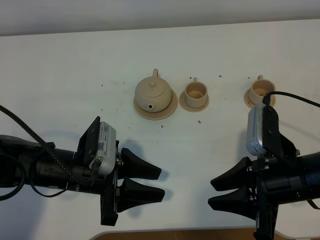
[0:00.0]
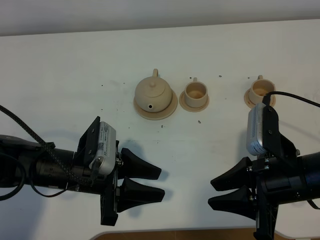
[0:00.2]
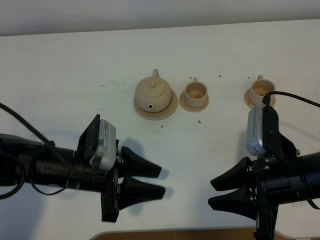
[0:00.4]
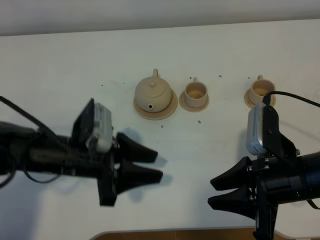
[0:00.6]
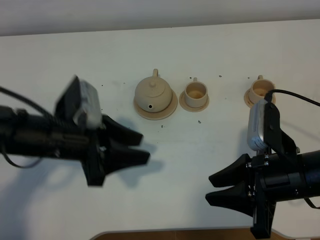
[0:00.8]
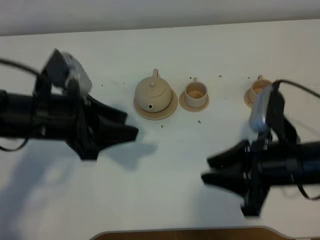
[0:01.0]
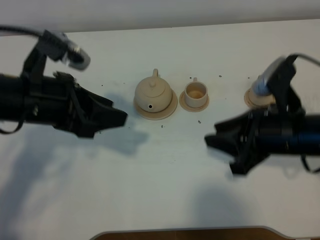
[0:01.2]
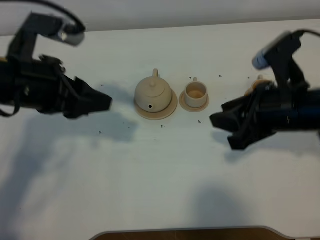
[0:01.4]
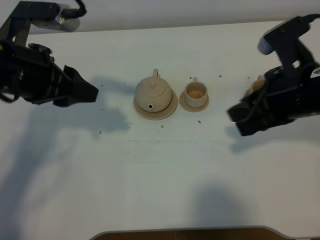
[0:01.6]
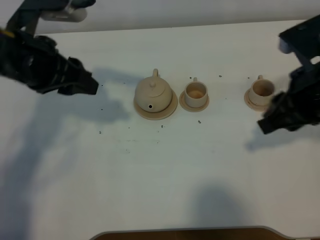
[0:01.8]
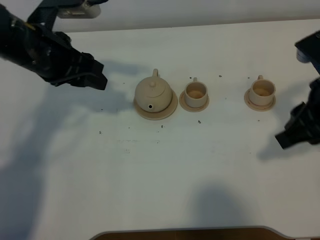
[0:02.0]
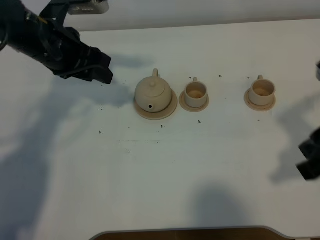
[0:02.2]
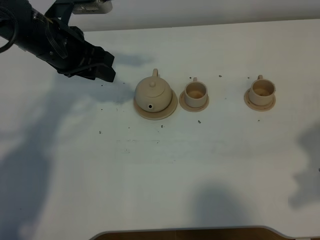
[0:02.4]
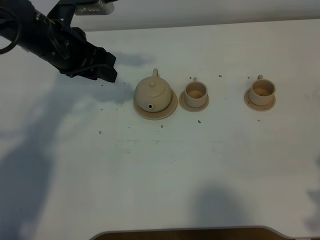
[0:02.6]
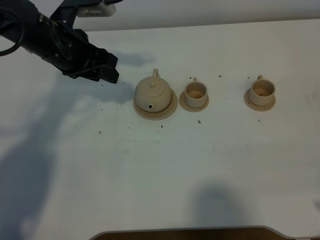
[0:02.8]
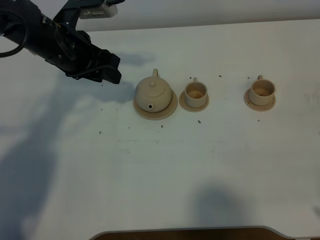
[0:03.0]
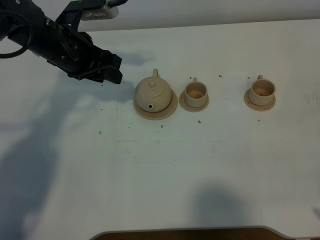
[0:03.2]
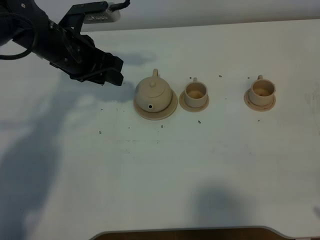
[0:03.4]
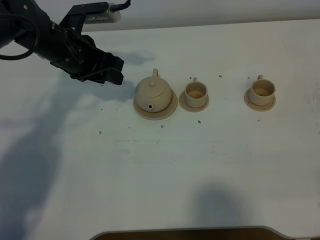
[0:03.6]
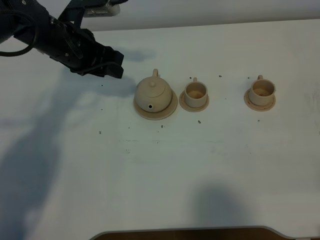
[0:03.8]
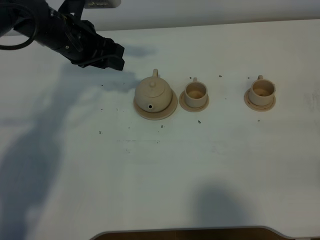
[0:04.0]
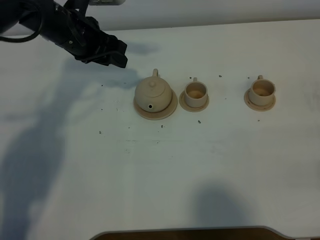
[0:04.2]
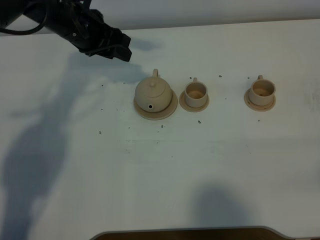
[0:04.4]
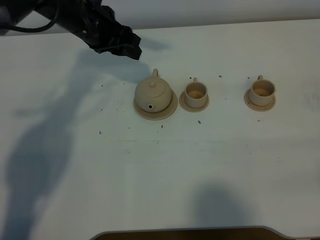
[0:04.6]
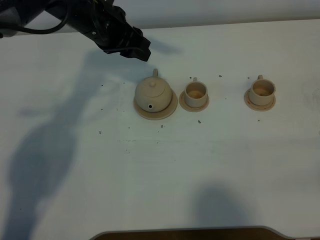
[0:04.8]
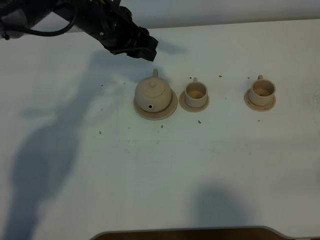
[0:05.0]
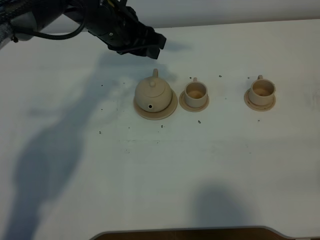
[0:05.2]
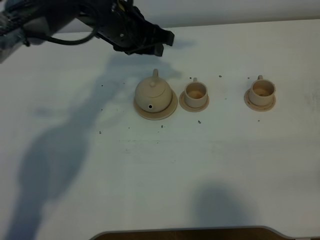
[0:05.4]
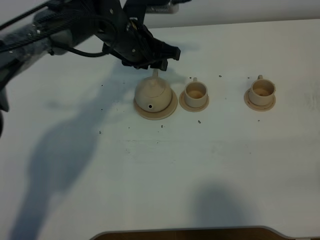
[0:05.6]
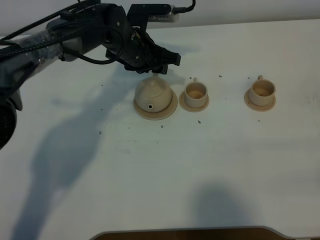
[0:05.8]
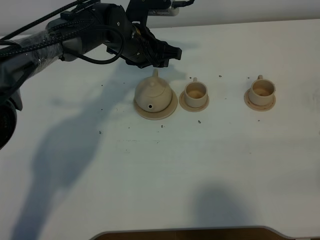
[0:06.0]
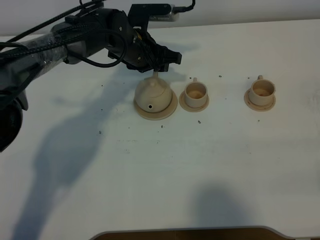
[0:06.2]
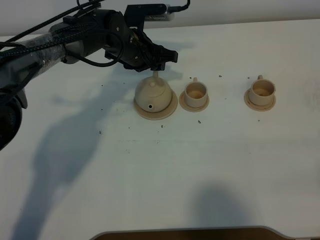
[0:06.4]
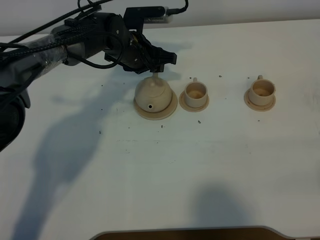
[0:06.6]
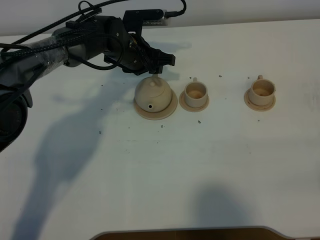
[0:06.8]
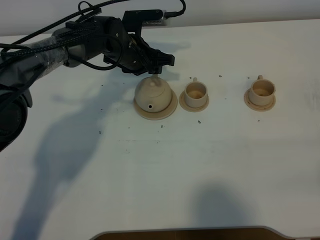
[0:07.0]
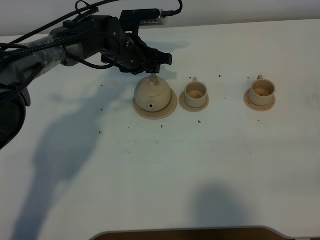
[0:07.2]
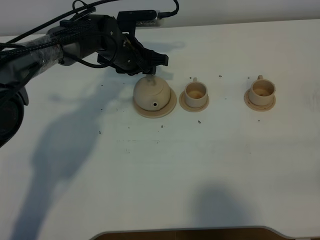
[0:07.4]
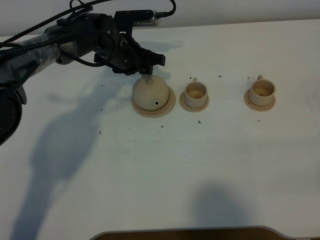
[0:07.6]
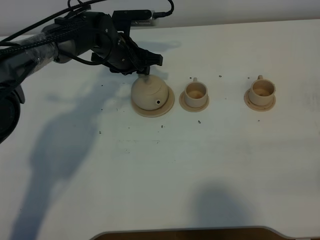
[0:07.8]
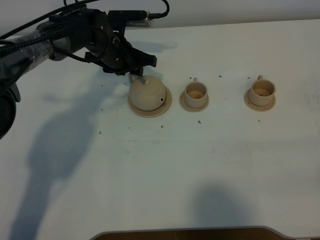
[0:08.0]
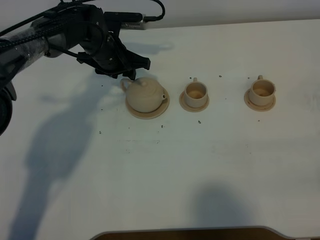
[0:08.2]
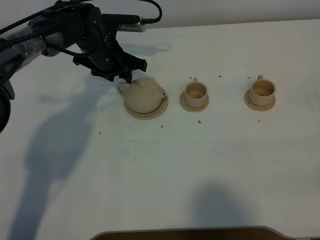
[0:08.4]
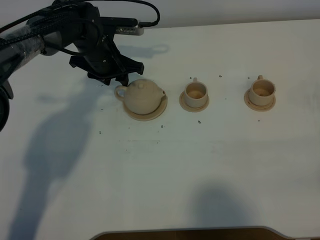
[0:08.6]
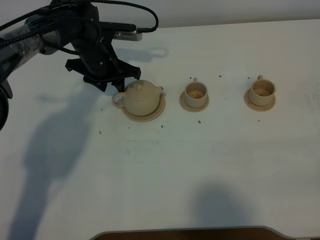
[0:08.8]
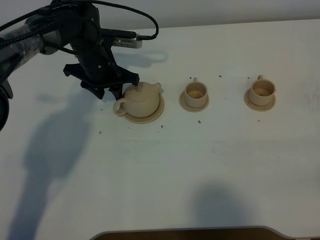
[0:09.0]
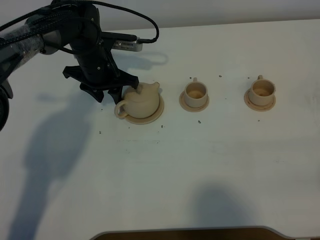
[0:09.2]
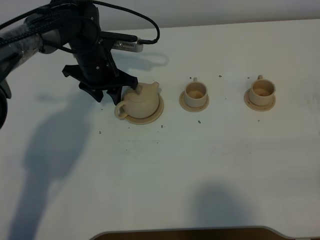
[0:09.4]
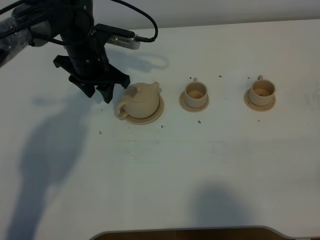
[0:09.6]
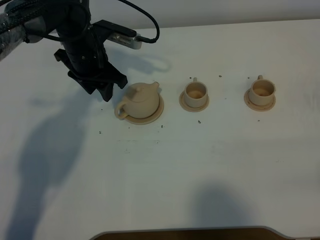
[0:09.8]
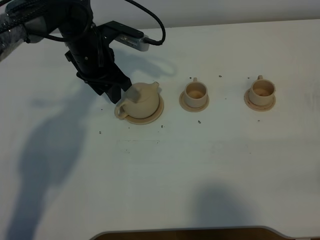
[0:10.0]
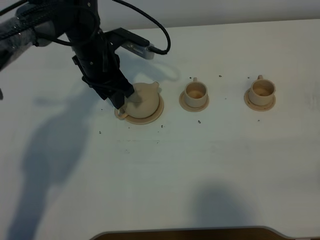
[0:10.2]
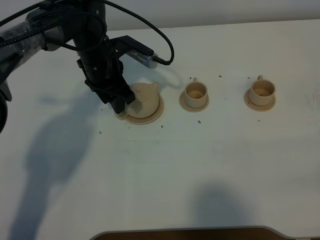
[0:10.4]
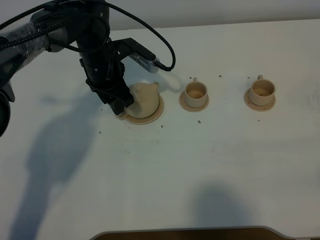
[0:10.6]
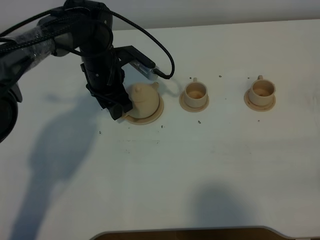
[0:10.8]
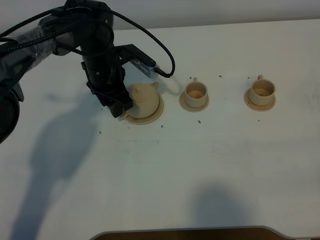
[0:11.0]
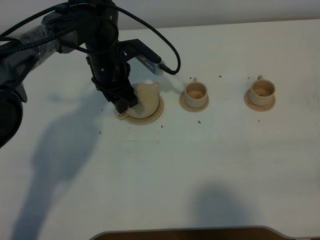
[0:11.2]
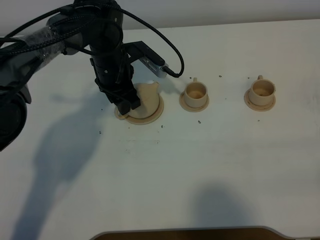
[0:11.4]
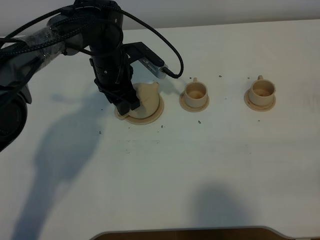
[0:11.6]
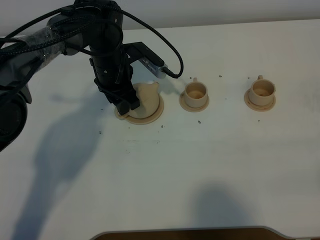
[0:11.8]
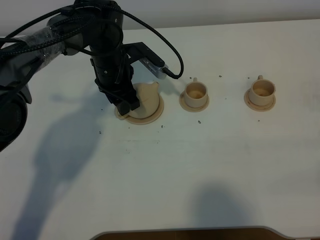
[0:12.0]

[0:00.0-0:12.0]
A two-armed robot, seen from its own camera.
Task of the whole recording: grasp the brown teapot and pour the tea into the two brown teacups one by one, put the brown teapot back in its original place.
0:00.0 to 0:01.6: The left gripper is displaced upward and forward by about 20 cm. Meanwhile the right gripper is displaced upward and forward by some 10 cm.
0:01.6 to 0:03.0: The left gripper is displaced forward and downward by roughly 15 cm; the right gripper travels backward and to the right by some 20 cm.
0:03.0 to 0:04.4: The left gripper travels forward by roughly 5 cm. The right gripper closes.
0:04.4 to 0:06.0: The right gripper closes; the left gripper goes roughly 10 cm to the right and downward.
0:06.0 to 0:07.6: The left gripper shifts by some 5 cm.
0:10.4 to 0:12.0: There are only small adjustments of the grippers.

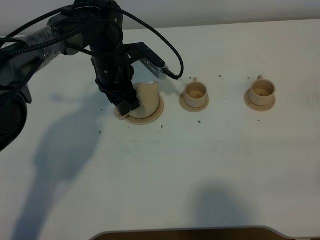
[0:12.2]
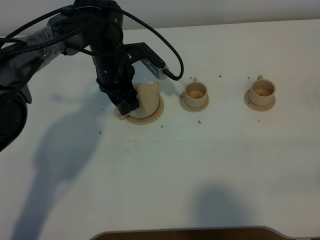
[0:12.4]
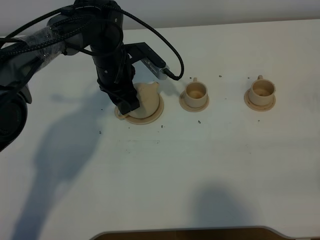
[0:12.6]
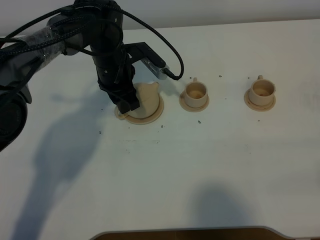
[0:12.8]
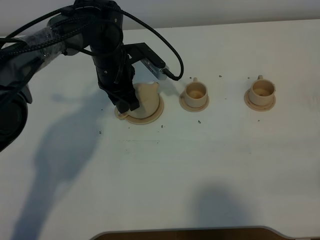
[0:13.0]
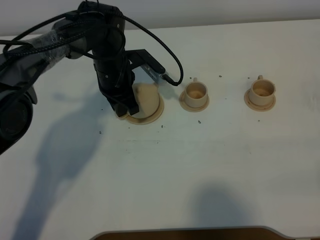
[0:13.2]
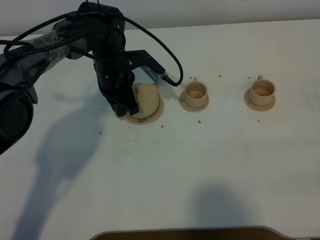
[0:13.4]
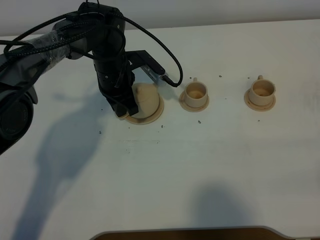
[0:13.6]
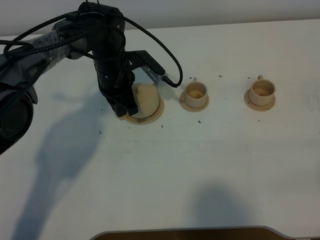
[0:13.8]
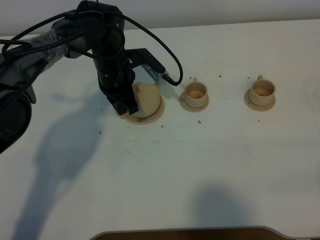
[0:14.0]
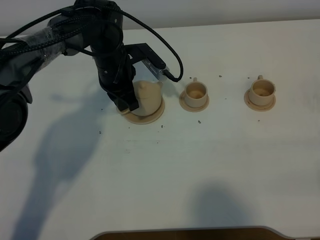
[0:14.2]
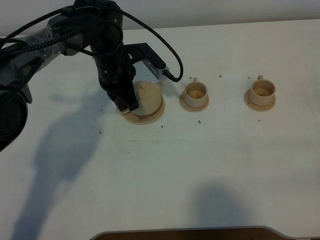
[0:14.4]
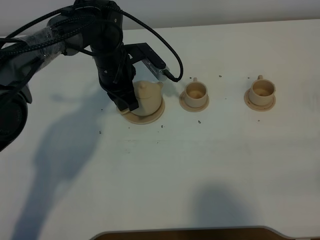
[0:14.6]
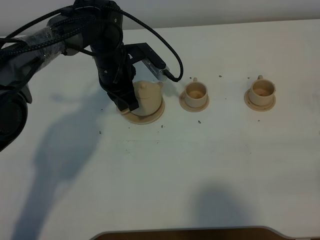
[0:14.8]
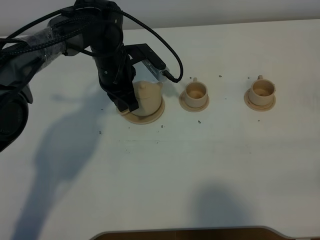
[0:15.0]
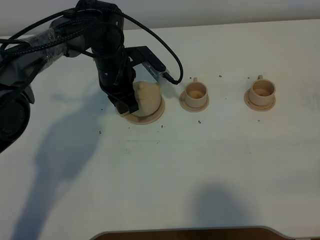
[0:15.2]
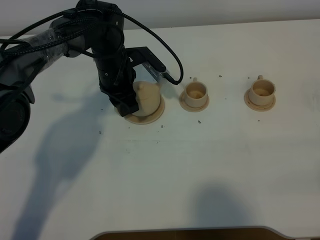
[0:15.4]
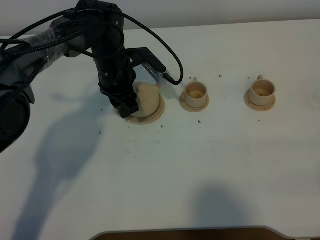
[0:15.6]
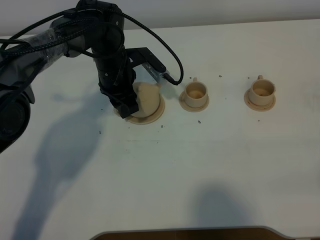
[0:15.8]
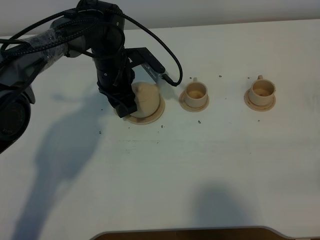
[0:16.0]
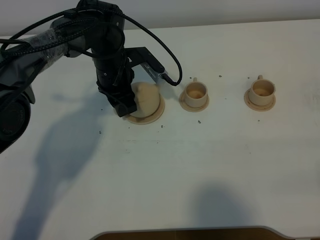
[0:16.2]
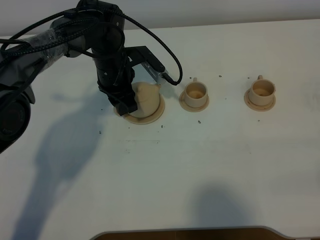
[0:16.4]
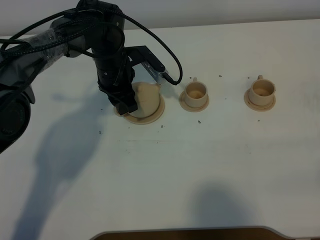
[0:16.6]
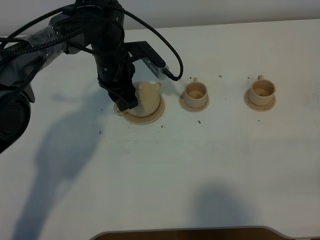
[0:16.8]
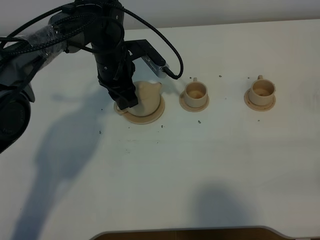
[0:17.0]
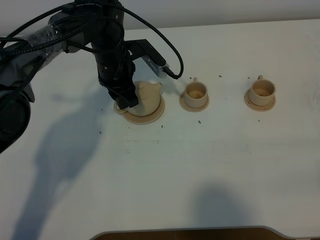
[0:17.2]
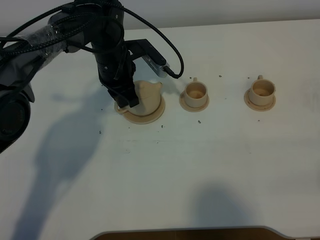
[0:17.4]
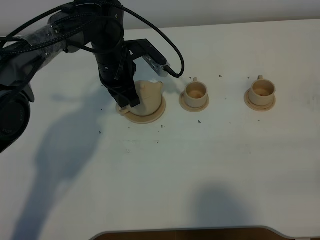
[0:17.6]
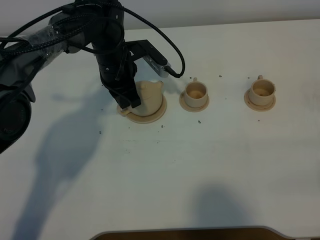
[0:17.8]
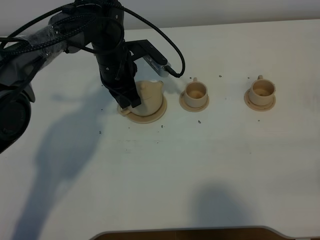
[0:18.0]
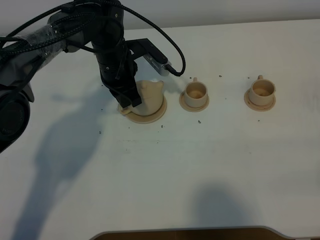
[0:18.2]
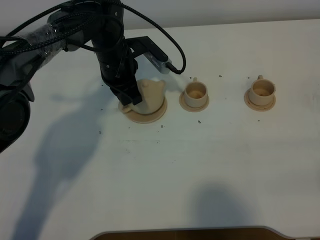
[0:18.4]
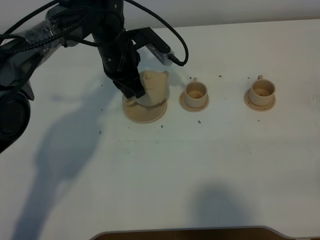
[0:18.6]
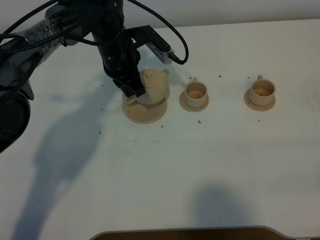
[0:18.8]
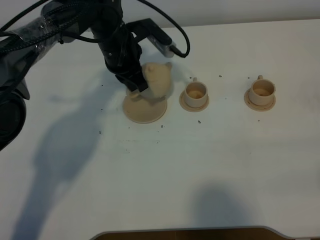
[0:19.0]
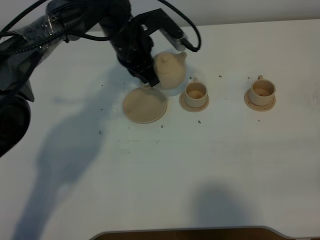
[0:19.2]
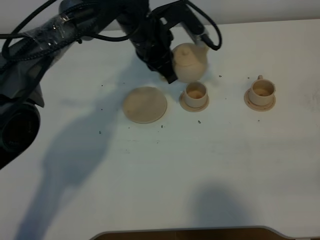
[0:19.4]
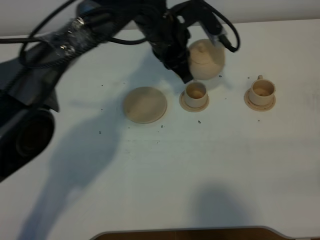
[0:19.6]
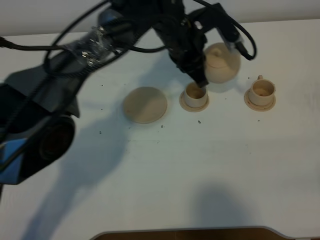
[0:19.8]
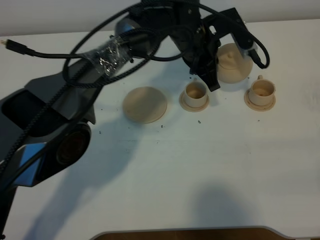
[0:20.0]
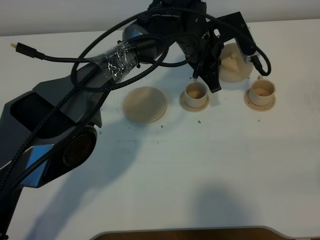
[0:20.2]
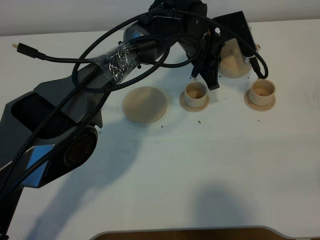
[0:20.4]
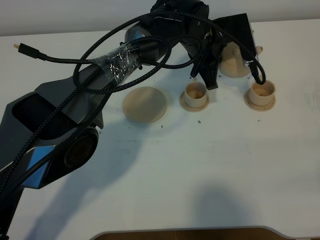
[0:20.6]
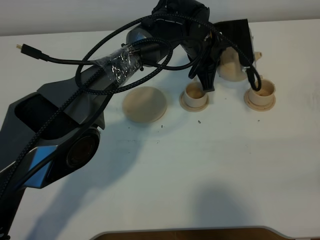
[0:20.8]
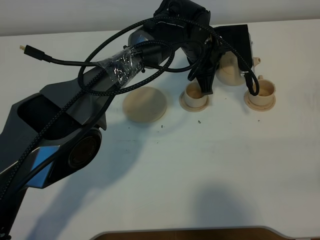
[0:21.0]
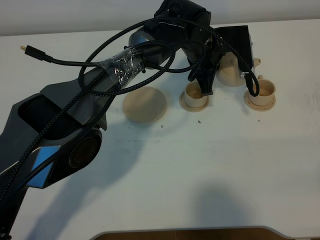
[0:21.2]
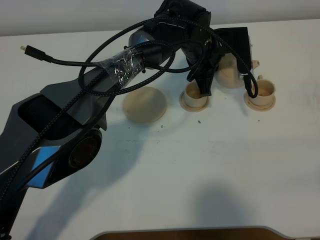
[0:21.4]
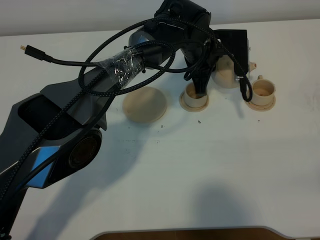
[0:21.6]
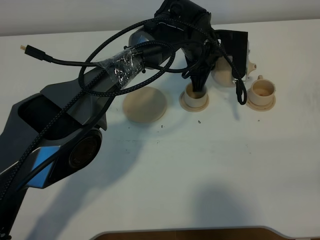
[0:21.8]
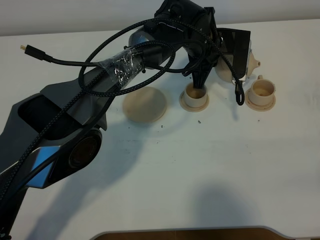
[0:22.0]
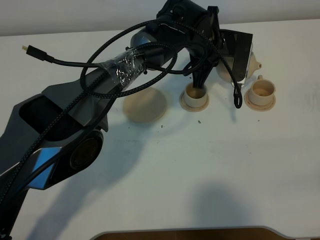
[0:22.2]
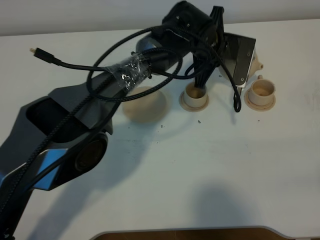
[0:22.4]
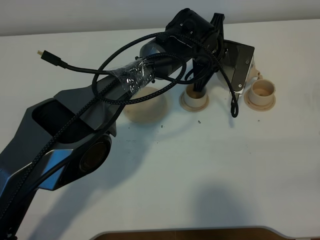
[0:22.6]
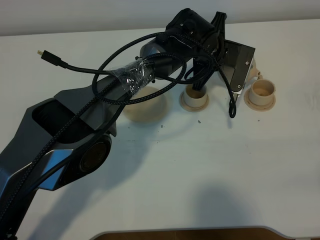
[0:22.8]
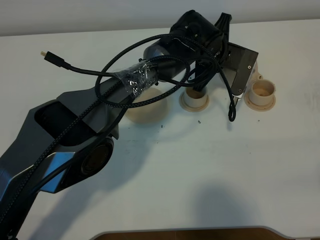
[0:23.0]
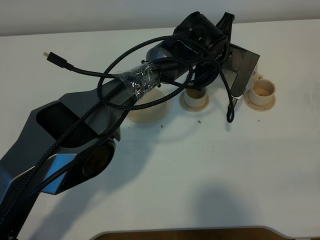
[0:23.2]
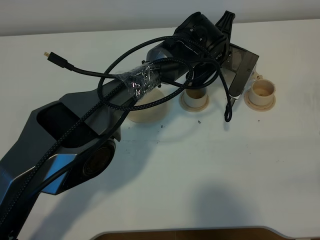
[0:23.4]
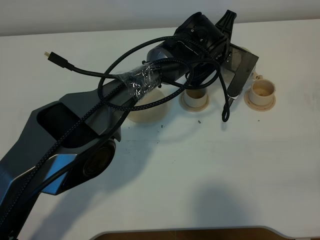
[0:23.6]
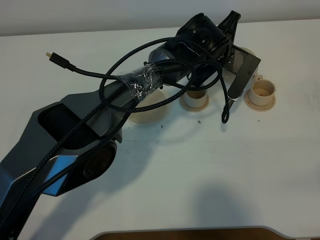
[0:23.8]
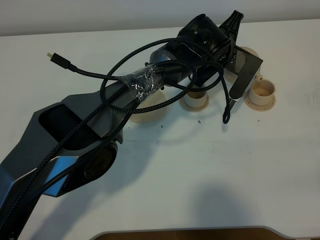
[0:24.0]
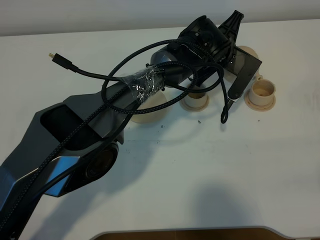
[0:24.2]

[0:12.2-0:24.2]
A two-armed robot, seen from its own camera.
Task of the whole recording: grasp the brown teapot and pour the tea into the two brown teacups one by one, put the brown teapot back in its original place.
Step, 0:12.2 to 0:18.2: Pick up the teapot with the left gripper.
0:12.2 to 0:13.8: The left gripper closes its fingers.
0:13.8 to 0:15.2: The grippers stay close to where they were, moving slightly.
0:15.2 to 0:16.6: The left gripper opens its fingers.
0:16.6 to 0:18.2: The left gripper closes its fingers.
0:18.2 to 0:19.8: The left gripper is displaced to the right by roughly 15 cm.
0:22.6 to 0:24.2: There are only small adjustments of the grippers.
